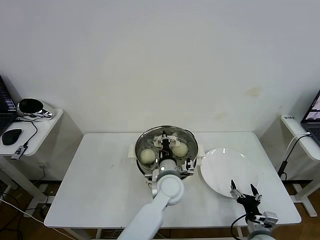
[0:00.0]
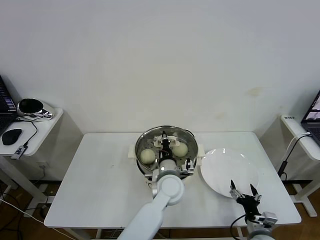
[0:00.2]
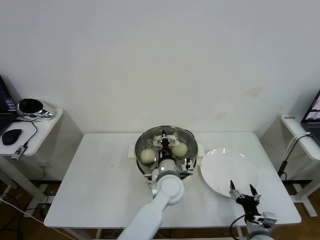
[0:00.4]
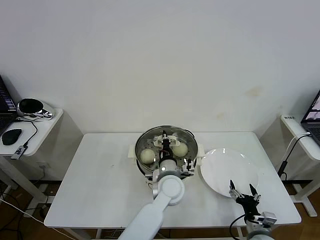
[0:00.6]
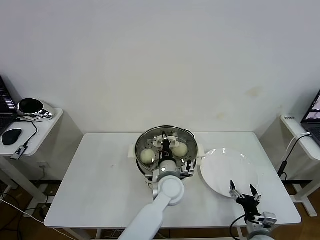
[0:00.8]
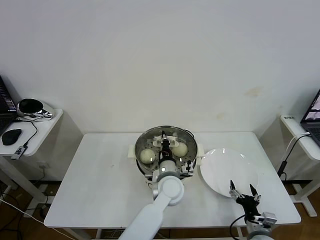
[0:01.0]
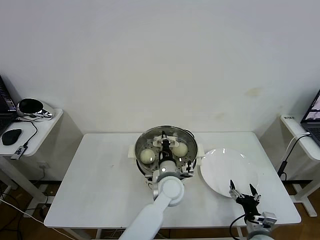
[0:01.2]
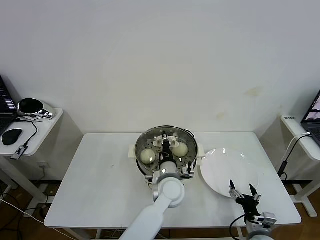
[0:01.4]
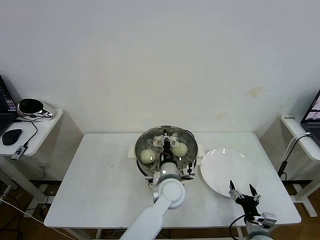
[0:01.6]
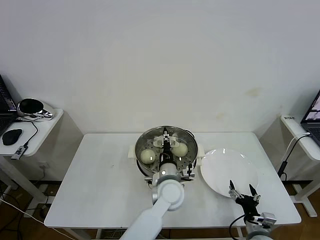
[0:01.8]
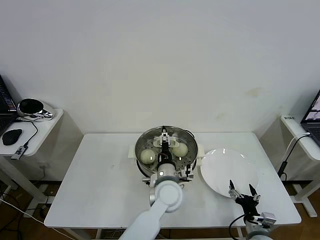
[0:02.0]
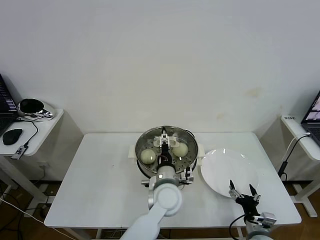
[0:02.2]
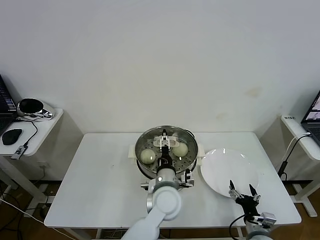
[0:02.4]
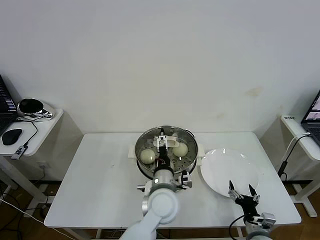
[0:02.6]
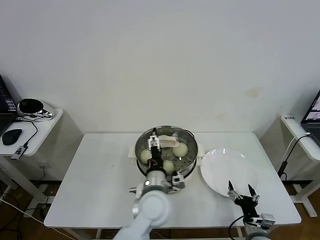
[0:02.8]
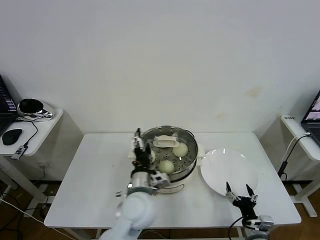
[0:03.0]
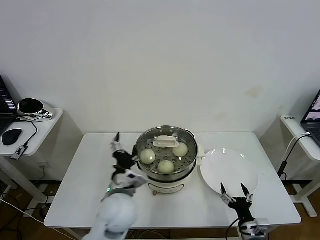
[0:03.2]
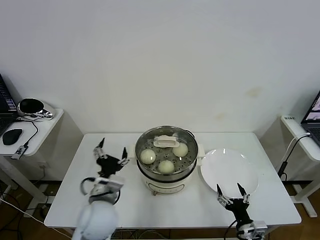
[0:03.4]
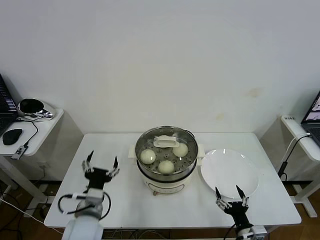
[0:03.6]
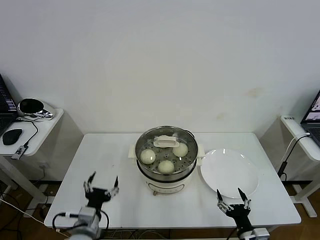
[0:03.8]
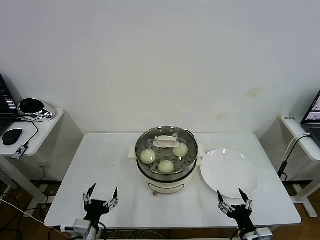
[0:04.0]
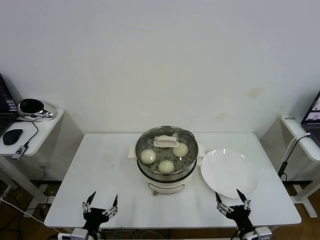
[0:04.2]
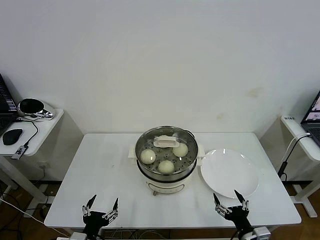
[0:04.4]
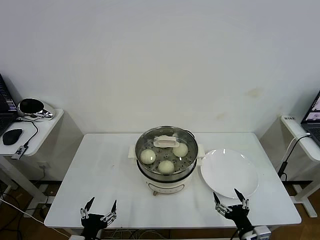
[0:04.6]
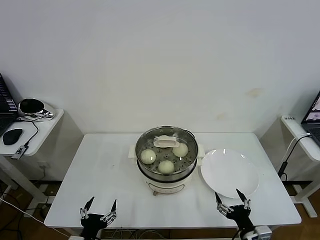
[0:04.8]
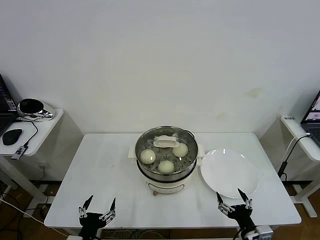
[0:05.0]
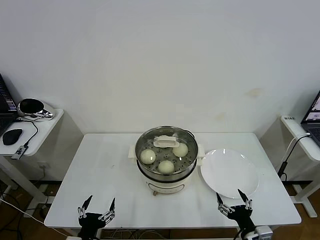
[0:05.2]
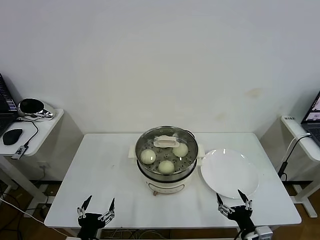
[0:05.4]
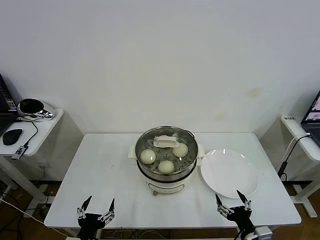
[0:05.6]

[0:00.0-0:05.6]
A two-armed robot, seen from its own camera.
Task of the whole recording: take steamed baozi put them in steamer then cover it.
Step, 0:00.0 to 0:02.4: Place the pot lid on the steamer with left gripper.
0:00.0 to 0:01.4: Neither gripper changes place.
0:01.4 to 0:02.8: The left gripper is displaced backward by roughly 5 cm, and opens its fingers.
0:02.8 to 0:04.2: The left gripper heads to the left, backward and downward, covering about 30 cm; the right gripper moves backward, roughly 5 cm.
0:04.2 to 0:05.6: The grippers move only a little.

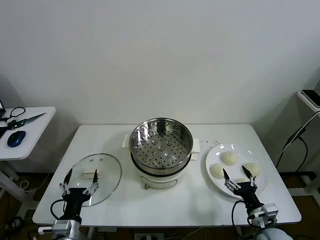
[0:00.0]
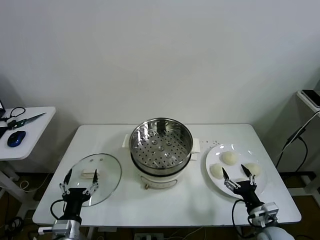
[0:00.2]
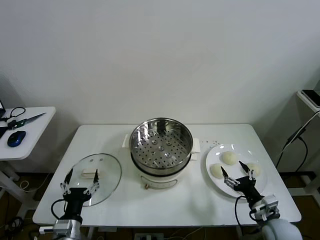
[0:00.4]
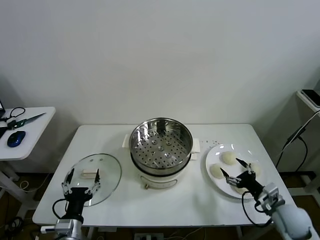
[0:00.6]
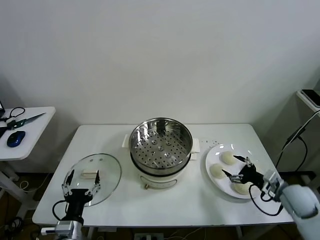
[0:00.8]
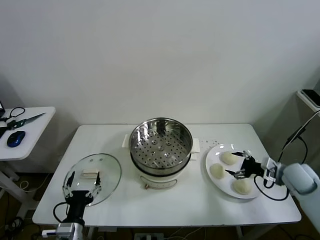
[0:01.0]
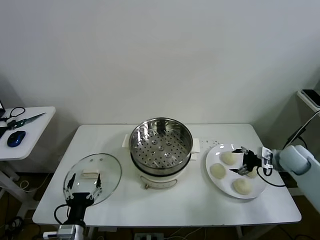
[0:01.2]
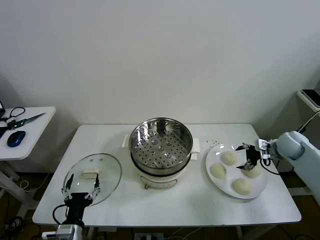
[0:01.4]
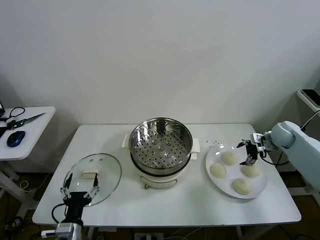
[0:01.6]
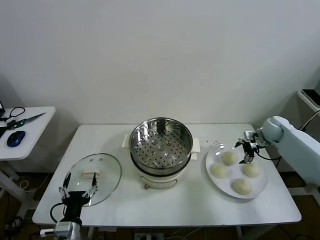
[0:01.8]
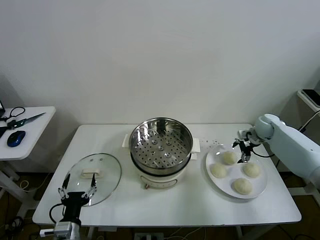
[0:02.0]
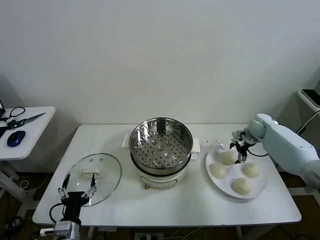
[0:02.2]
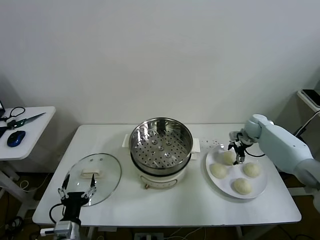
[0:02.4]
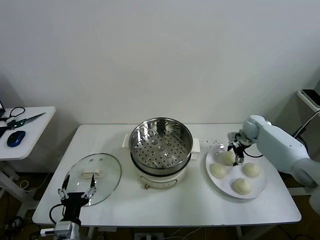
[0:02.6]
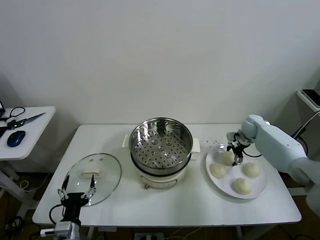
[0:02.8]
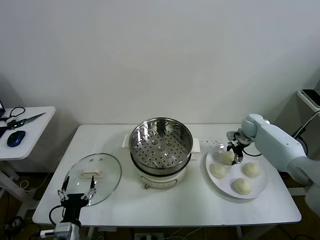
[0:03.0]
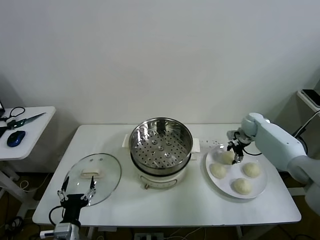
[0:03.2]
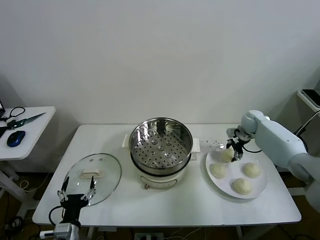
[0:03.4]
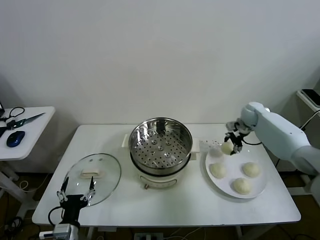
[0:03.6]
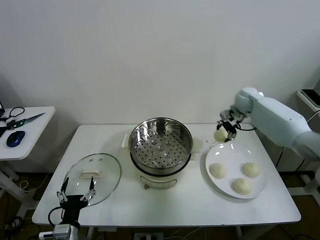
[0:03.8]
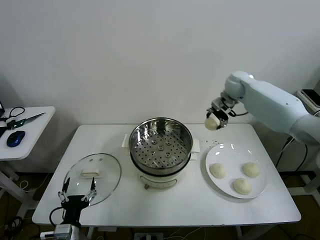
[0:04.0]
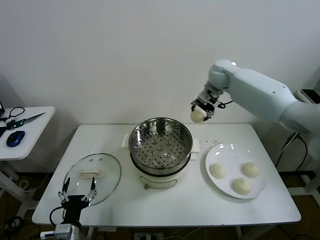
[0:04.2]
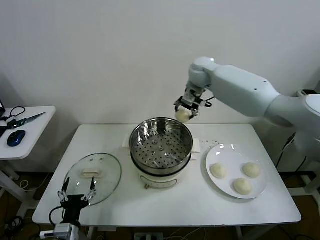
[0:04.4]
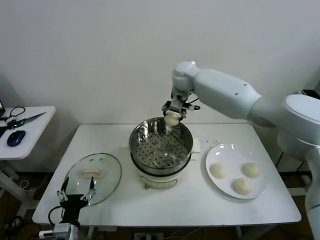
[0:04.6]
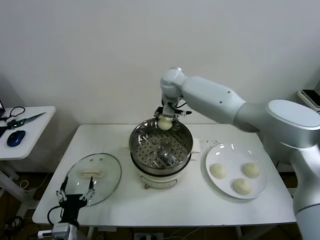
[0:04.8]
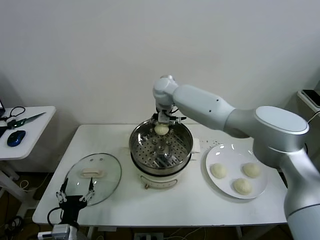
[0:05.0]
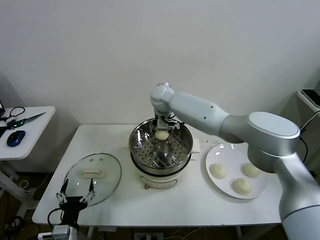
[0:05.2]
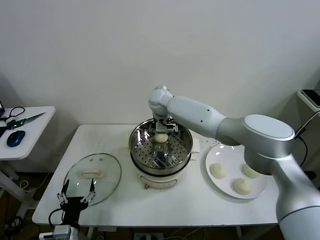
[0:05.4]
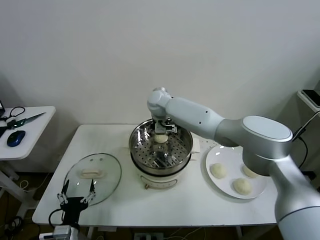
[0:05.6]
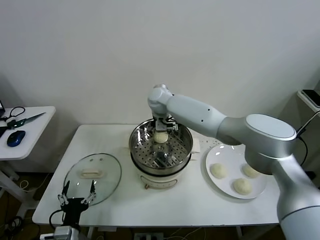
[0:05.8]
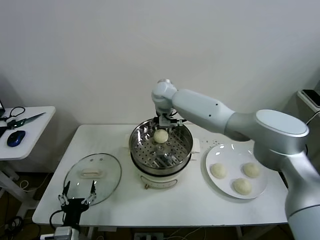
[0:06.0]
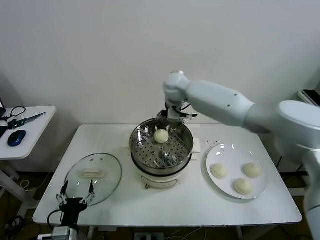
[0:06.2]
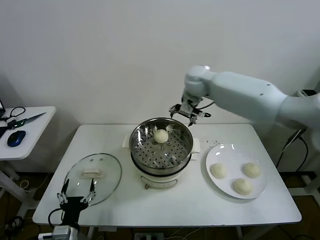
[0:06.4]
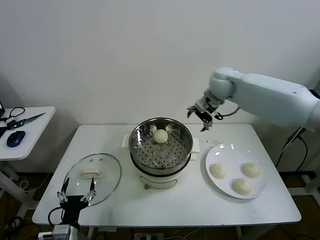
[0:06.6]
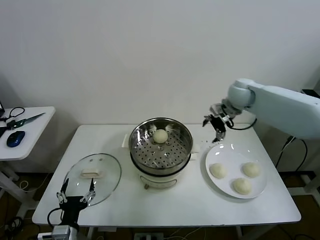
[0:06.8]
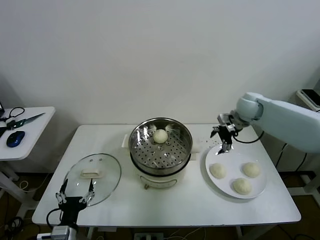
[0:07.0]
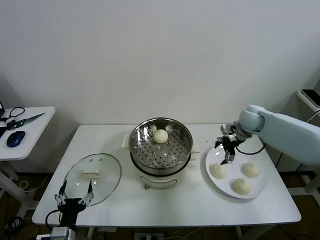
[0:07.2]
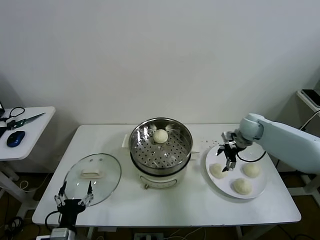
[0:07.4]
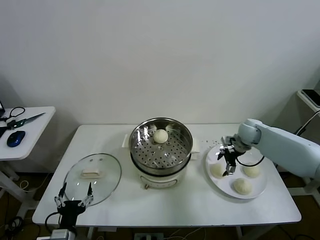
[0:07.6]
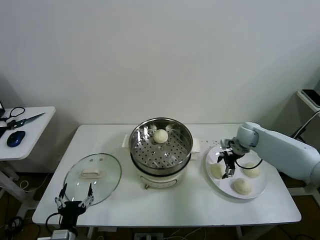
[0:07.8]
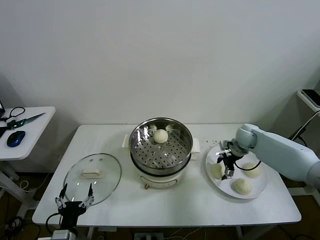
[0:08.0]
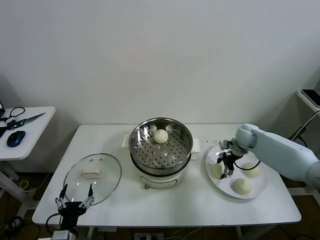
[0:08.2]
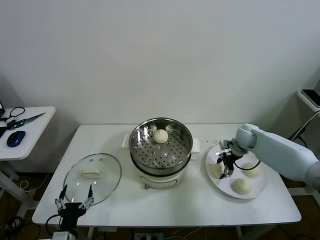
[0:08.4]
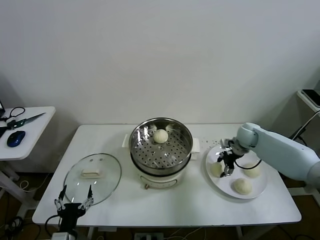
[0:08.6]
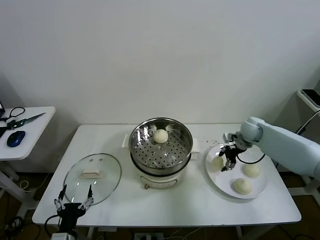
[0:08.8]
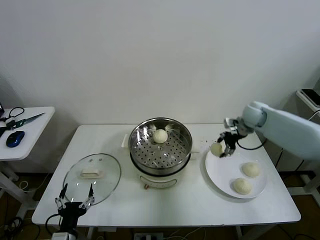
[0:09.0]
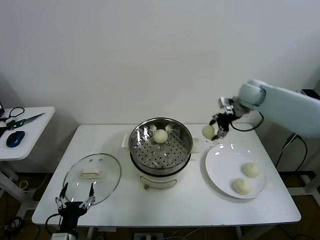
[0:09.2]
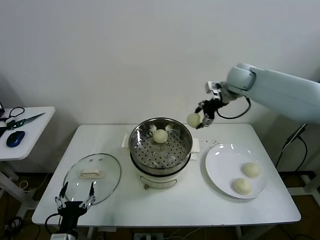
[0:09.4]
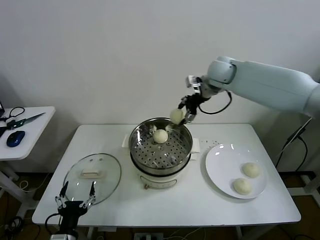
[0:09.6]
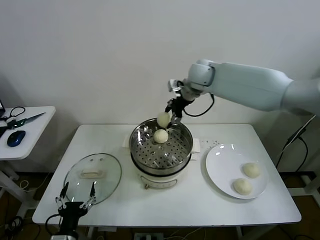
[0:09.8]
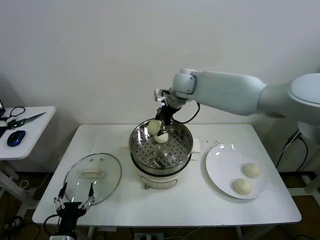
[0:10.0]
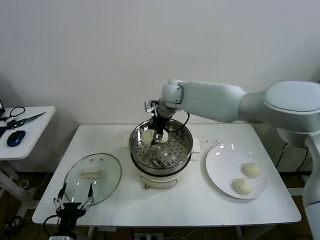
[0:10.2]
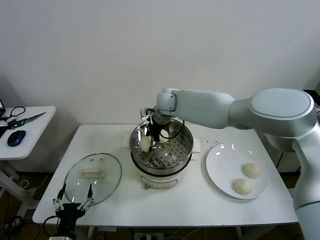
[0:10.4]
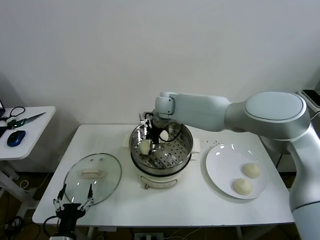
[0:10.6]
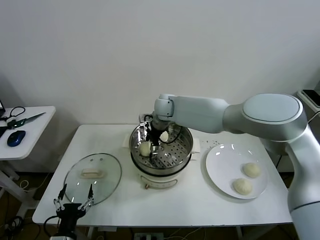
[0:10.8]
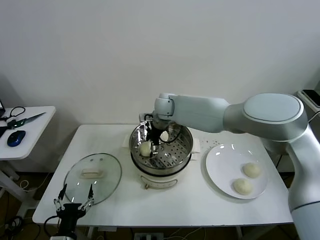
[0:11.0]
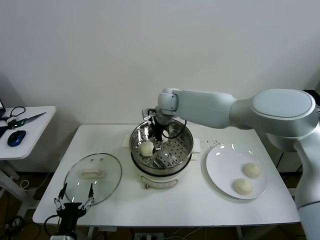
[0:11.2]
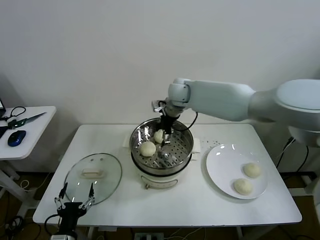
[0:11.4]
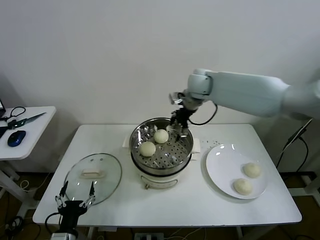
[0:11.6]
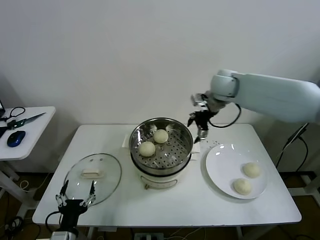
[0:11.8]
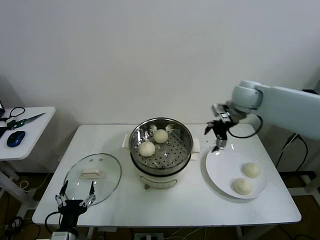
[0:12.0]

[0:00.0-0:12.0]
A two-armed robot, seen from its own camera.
Task of the whole recording: take steamed baozi put them in steamer then cover it.
Step, 0:00.0 to 0:03.0: Grasp the baozi in the plate with right gripper.
Step, 0:03.2 to 0:05.8: Place the baozi on the steamer with right gripper.
Step, 0:06.0 to 0:08.4: Grasp the baozi in the plate with right gripper.
Step, 0:08.6 to 0:11.0: Place the baozi on the steamer with right gripper.
0:01.6 to 0:03.0: The right gripper goes roughly 10 cm forward and to the left, and closes up.
0:03.0 to 0:04.4: The right gripper moves to the left and upward, roughly 35 cm.
0:04.4 to 0:06.0: The right gripper travels to the left and downward by some 10 cm, and opens up.
0:06.0 to 0:07.6: The right gripper moves to the right and downward, some 35 cm.
0:07.6 to 0:09.0: The right gripper goes about 10 cm upward, and closes its fingers.
0:09.0 to 0:10.4: The right gripper travels to the left by about 30 cm.
0:10.4 to 0:12.0: The right gripper goes some 25 cm to the right, and opens.

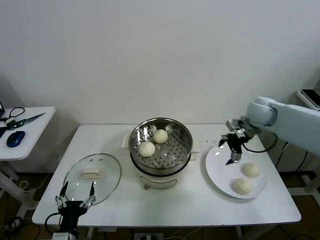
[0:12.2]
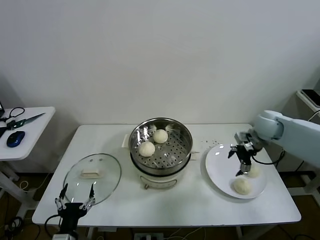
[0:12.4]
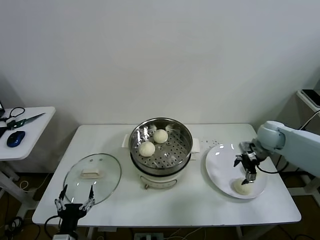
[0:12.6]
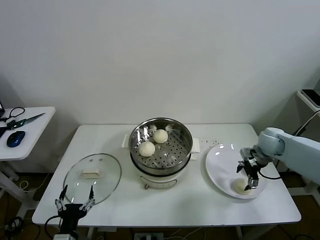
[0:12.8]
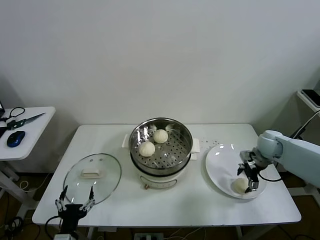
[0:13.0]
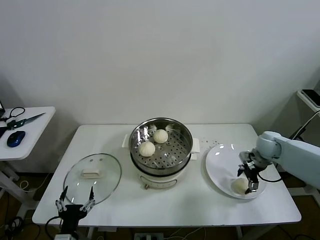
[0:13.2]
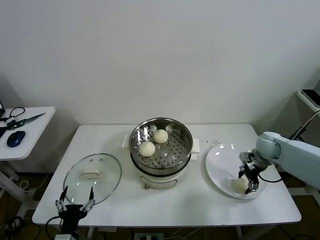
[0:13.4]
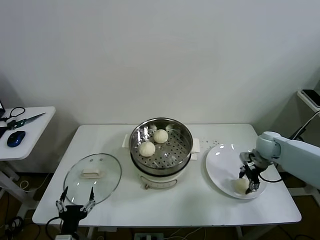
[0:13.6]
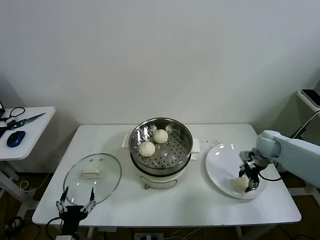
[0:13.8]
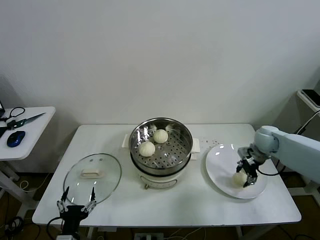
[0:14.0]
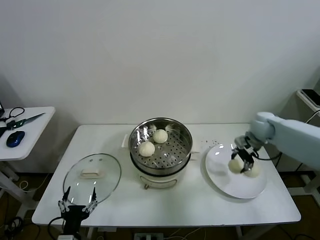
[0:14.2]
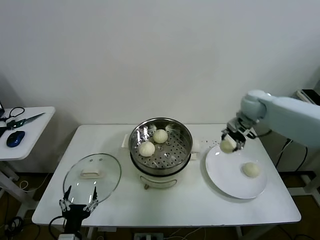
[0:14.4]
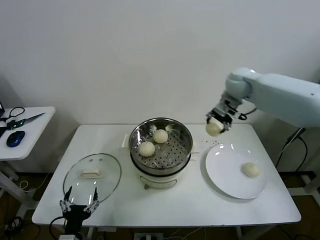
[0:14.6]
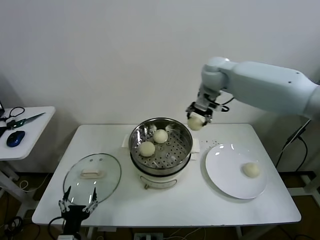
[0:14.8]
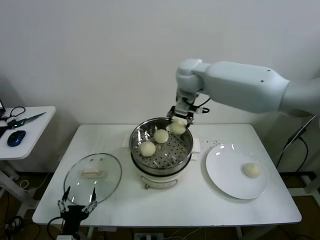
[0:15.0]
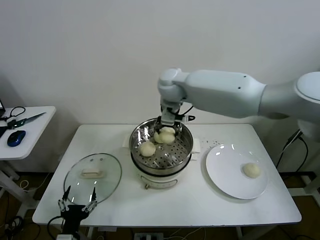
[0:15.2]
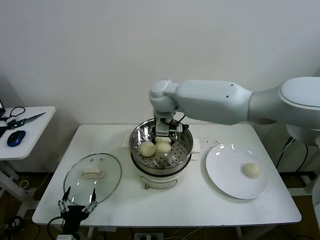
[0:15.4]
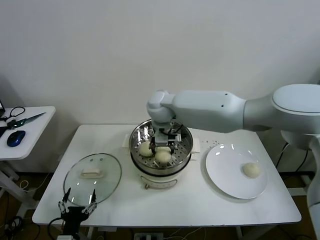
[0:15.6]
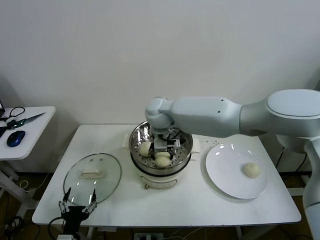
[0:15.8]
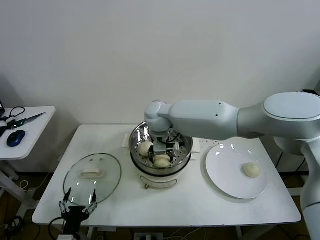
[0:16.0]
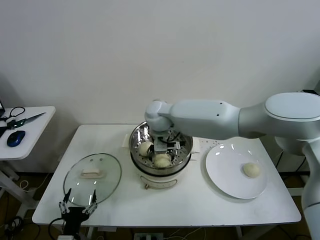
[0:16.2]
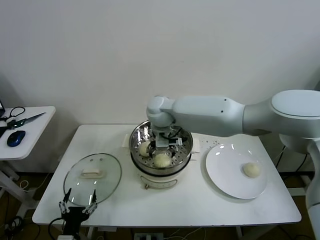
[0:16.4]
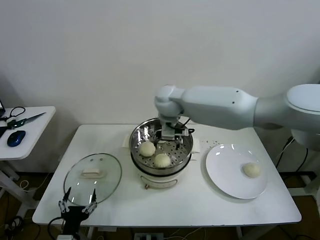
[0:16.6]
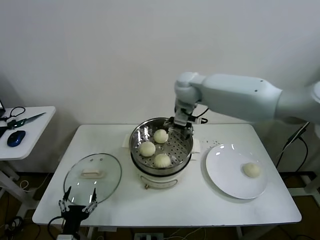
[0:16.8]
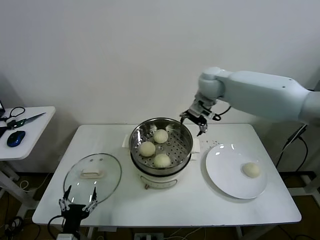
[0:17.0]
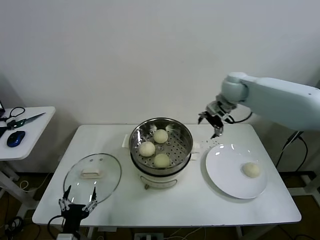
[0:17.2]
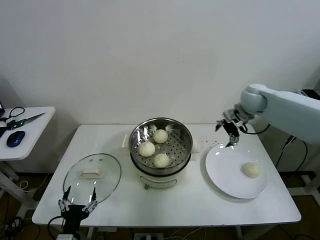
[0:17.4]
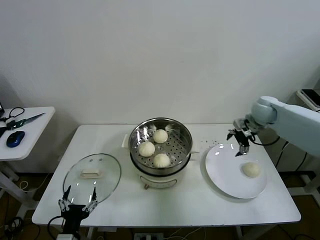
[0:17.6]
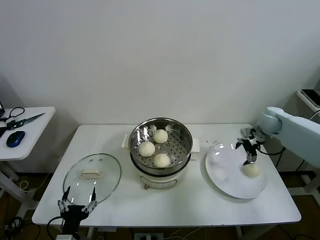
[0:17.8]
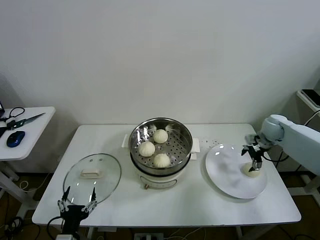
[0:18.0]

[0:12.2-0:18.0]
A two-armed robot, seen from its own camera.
Task of the whole recording: take steamed baozi put them in steamer then cover it.
Step, 0:12.2 to 0:13.6: Grasp the baozi in the plate with right gripper.
Step, 0:13.8 to 0:16.4: Place the baozi on the steamer with right gripper.
0:12.2 to 0:13.6: The right gripper heads downward and to the right, covering roughly 15 cm, and closes.
0:13.6 to 0:15.0: The right gripper shifts approximately 40 cm to the left and upward.
0:15.0 to 0:16.6: The right gripper heads downward, covering approximately 5 cm, and opens up.
0:16.6 to 0:18.0: The right gripper moves to the right, some 40 cm.
